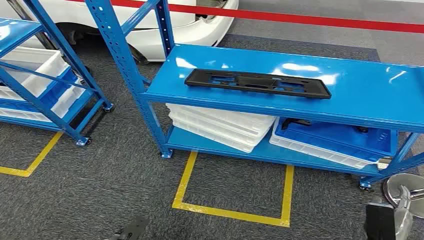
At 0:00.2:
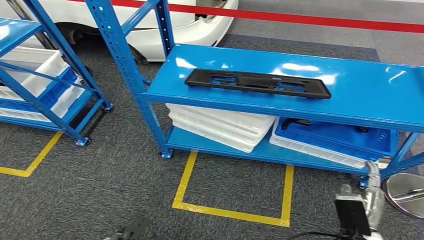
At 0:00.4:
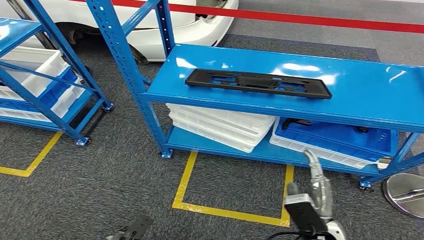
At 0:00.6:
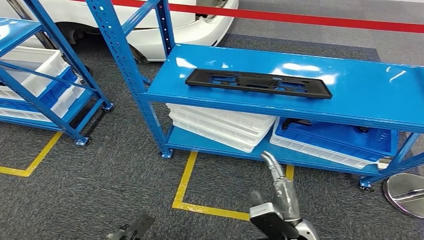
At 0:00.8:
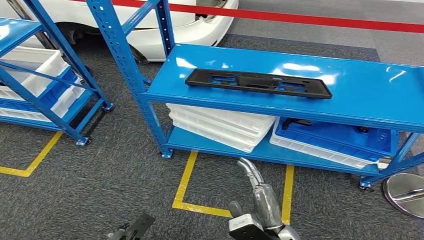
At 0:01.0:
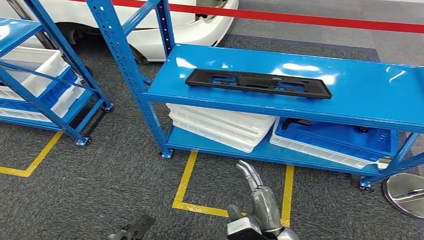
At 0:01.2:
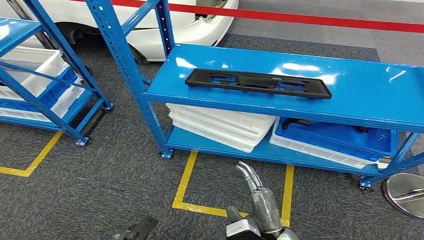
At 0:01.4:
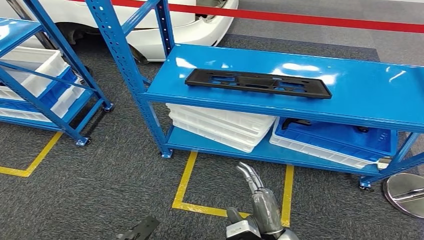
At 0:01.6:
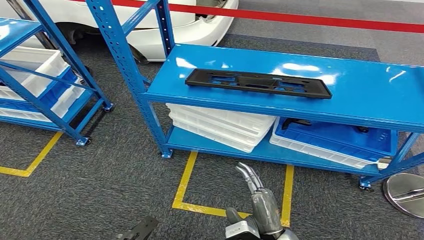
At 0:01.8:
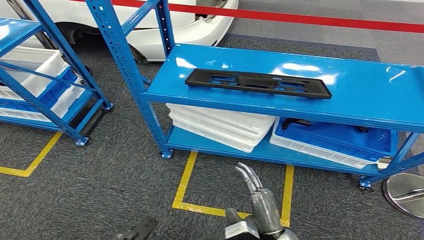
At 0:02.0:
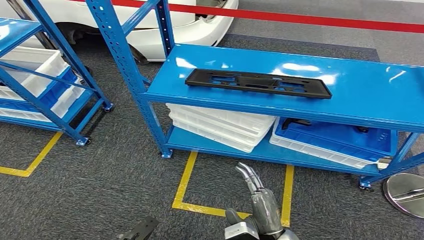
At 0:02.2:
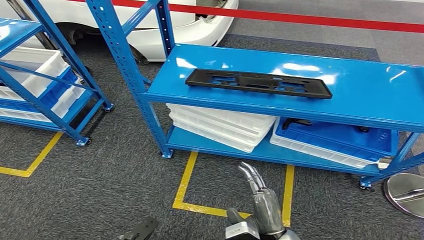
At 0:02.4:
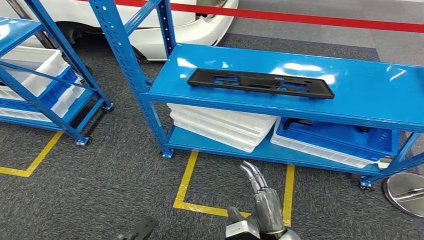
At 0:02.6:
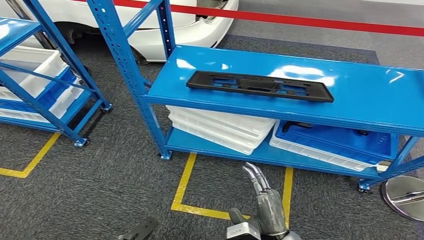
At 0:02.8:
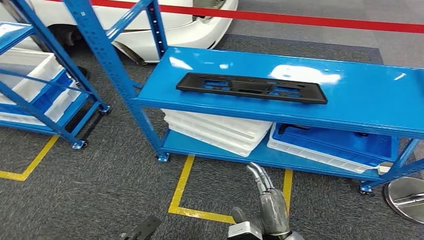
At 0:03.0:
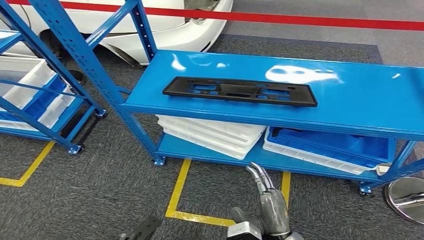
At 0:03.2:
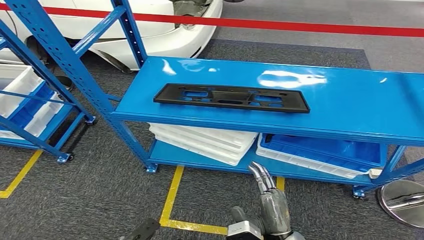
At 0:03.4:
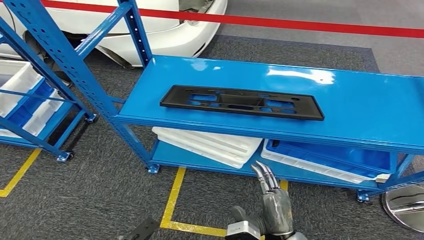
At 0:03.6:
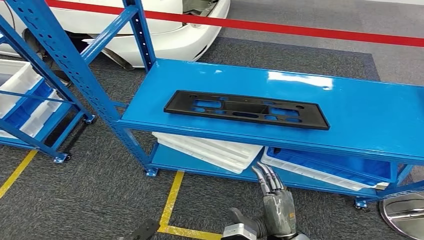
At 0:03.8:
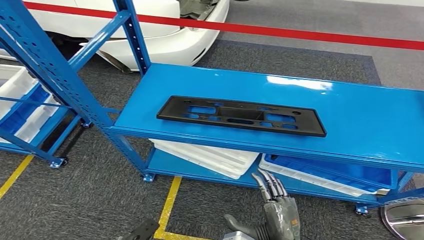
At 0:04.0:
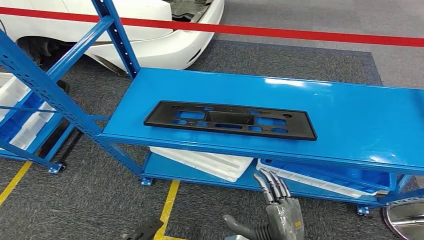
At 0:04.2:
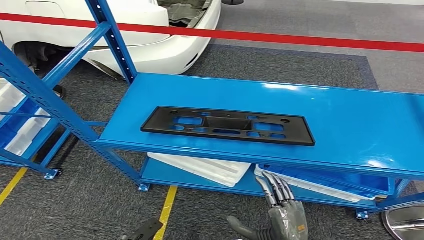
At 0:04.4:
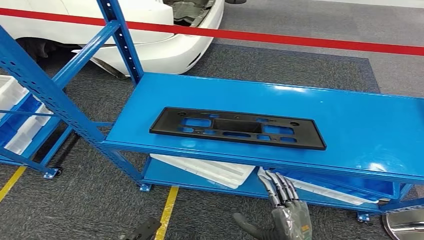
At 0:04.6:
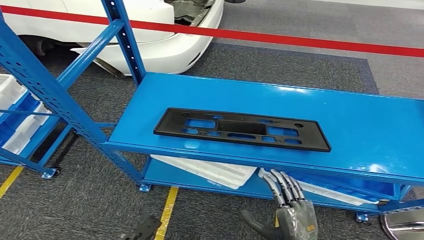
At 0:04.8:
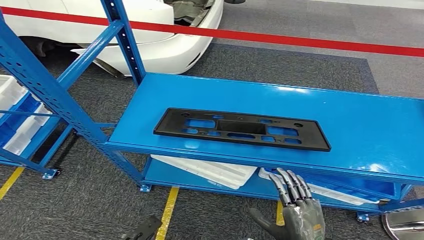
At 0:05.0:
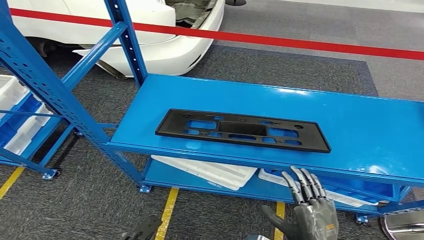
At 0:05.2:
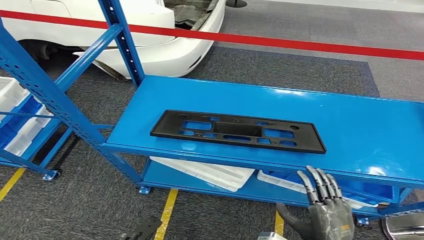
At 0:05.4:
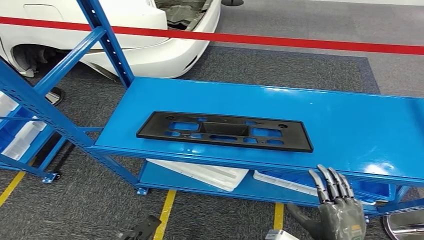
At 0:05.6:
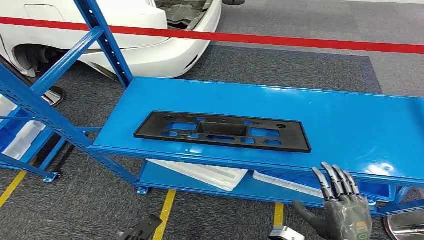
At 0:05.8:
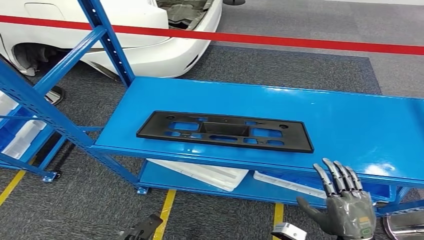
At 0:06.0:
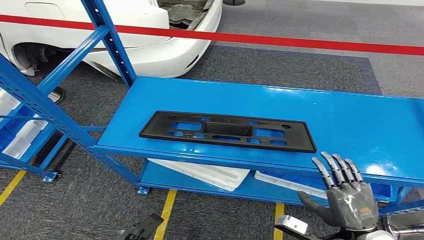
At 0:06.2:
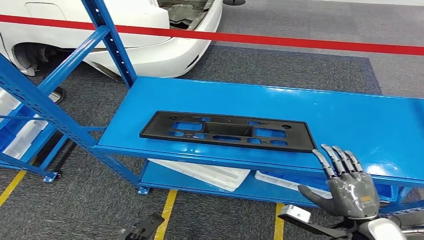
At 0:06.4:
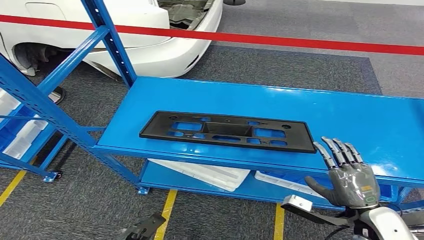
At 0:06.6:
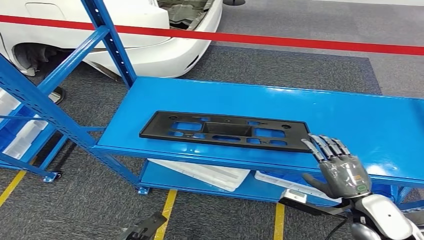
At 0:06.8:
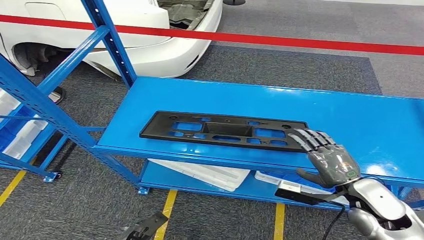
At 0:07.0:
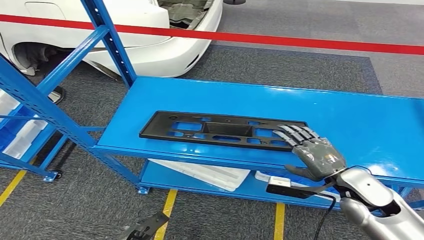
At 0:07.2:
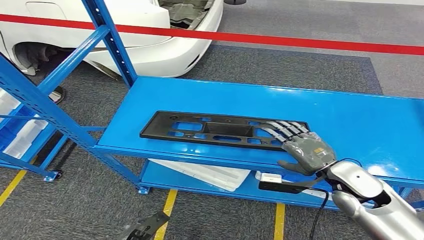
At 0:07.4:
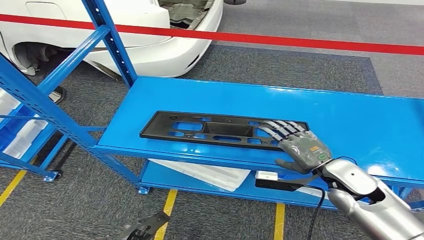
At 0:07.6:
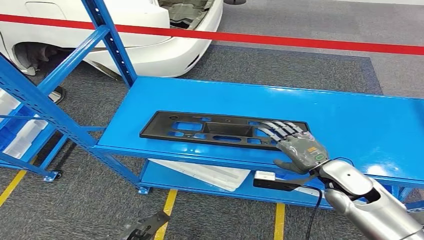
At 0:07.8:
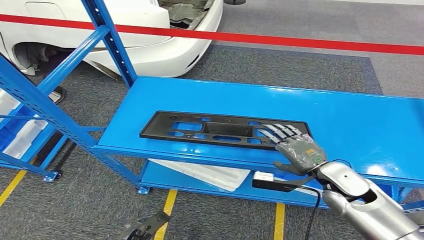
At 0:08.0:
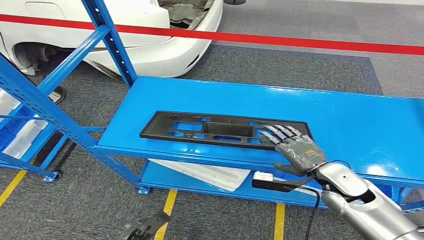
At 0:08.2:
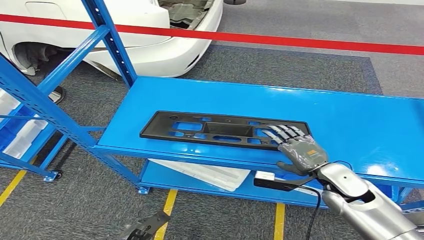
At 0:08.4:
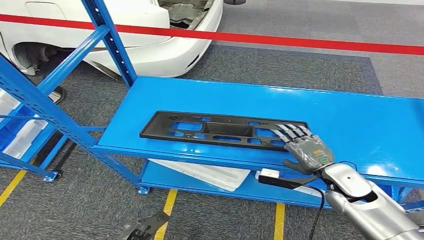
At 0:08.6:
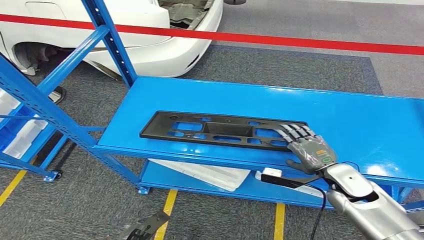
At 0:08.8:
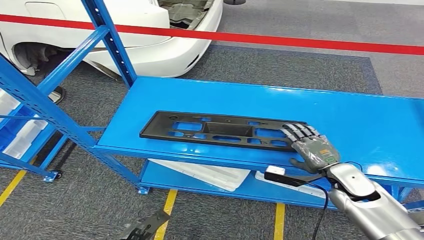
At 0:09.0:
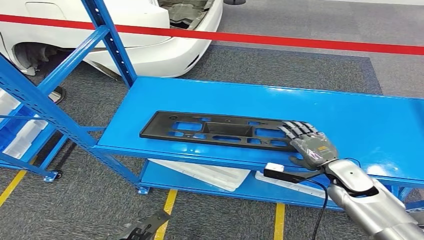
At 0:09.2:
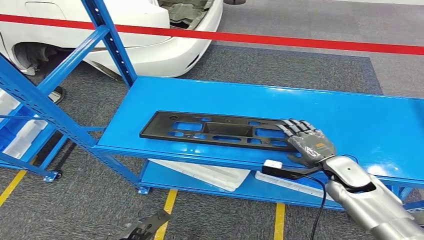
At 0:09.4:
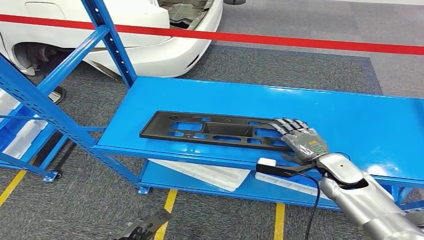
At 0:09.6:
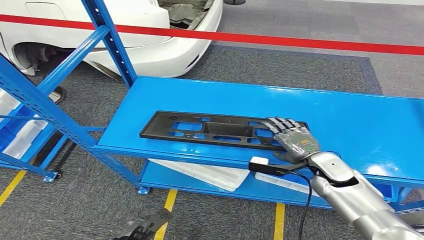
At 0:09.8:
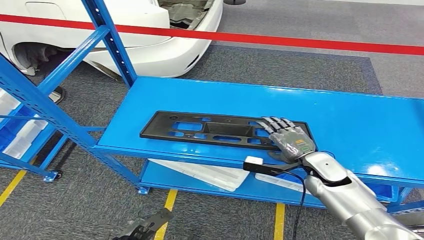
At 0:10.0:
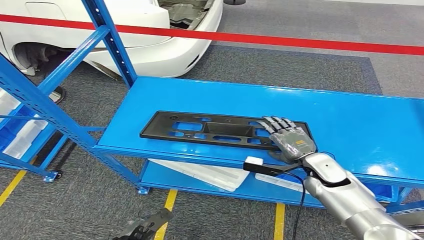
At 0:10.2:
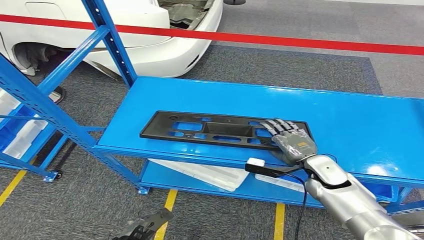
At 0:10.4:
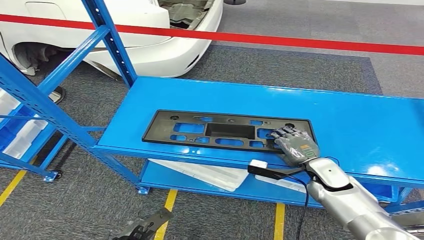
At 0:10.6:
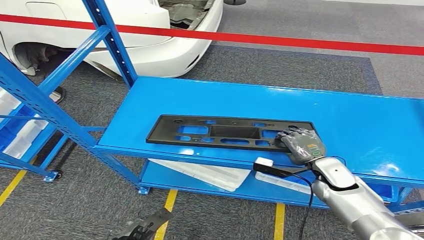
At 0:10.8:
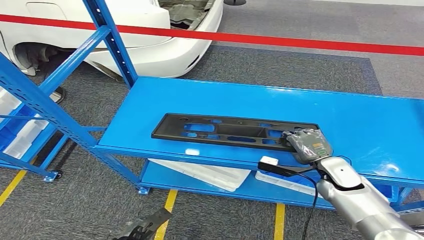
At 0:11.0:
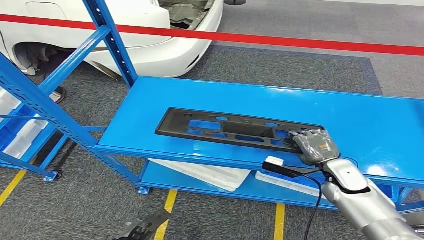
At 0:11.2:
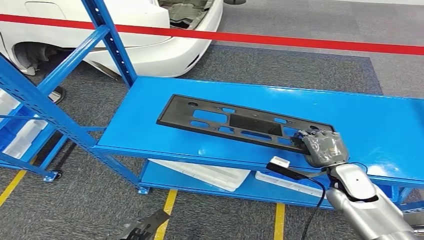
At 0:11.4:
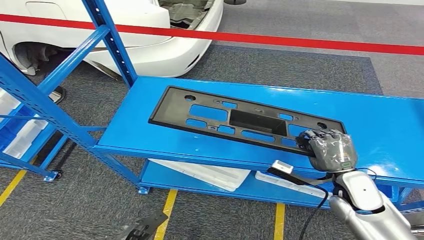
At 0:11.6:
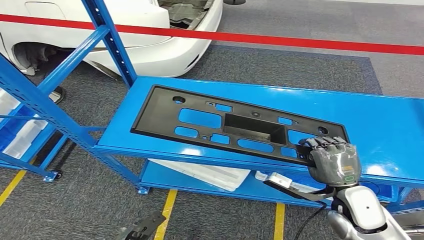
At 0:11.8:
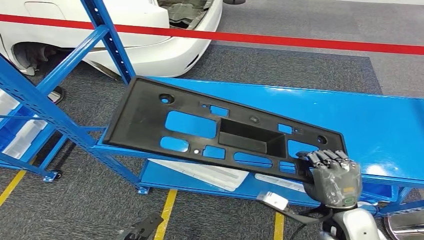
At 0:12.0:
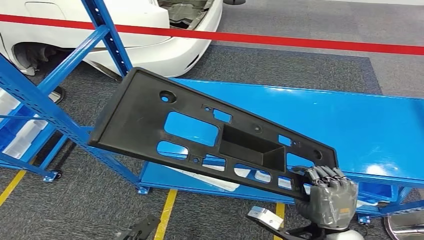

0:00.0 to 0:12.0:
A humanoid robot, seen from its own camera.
Step, 0:00.0 to 0:11.8: Pick up the large material from the shelf.
0:06.0 to 0:07.6: The right hand heads forward, covering approximately 15 cm.
0:07.6 to 0:09.0: The right hand changes place by approximately 5 cm.
0:09.0 to 0:10.4: The hands move only a little.

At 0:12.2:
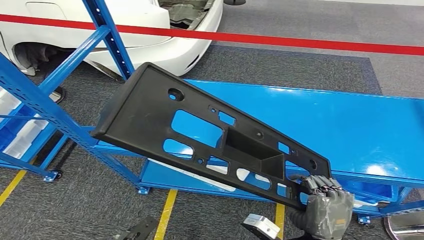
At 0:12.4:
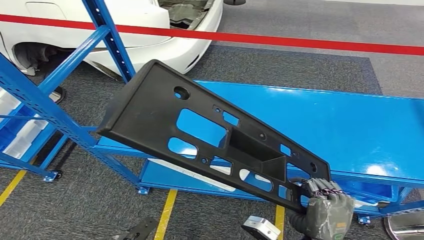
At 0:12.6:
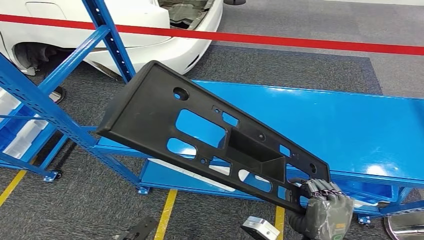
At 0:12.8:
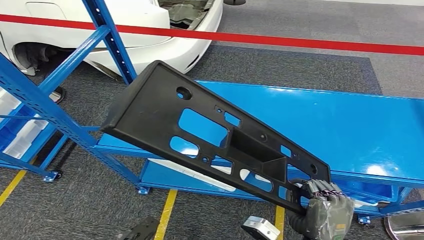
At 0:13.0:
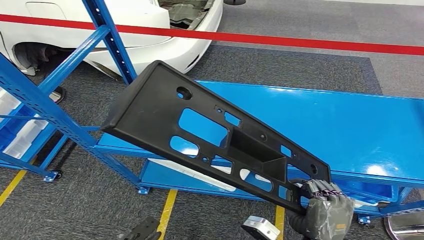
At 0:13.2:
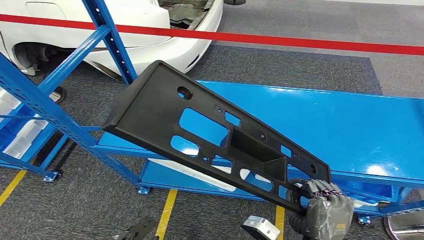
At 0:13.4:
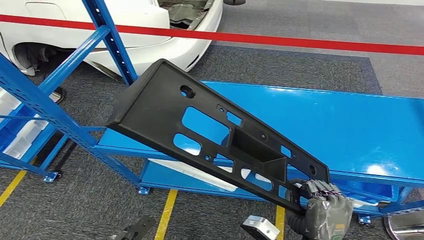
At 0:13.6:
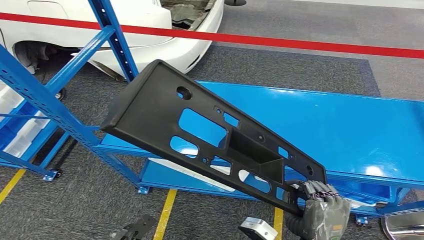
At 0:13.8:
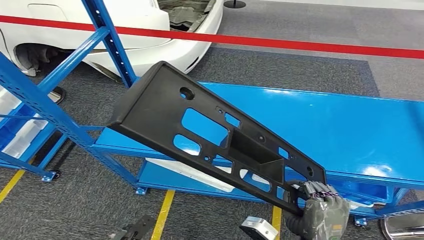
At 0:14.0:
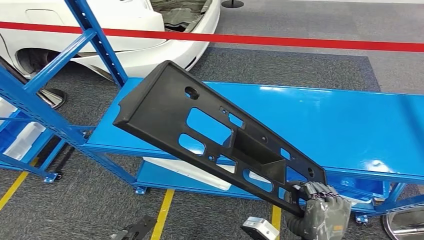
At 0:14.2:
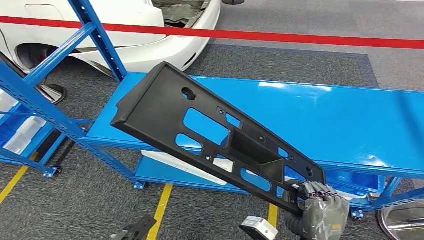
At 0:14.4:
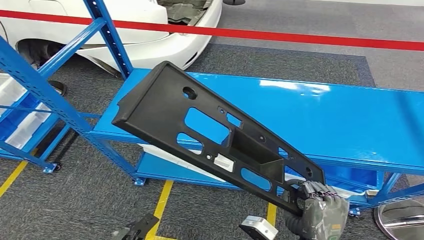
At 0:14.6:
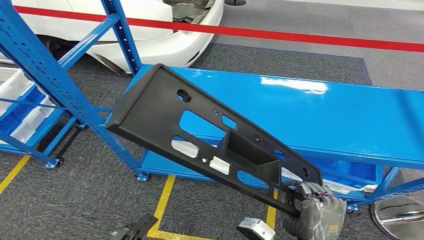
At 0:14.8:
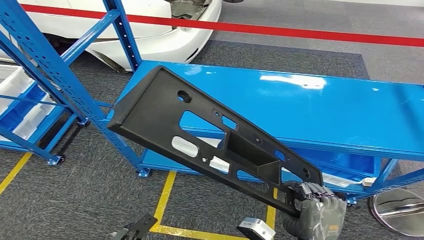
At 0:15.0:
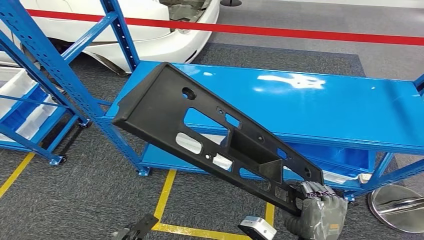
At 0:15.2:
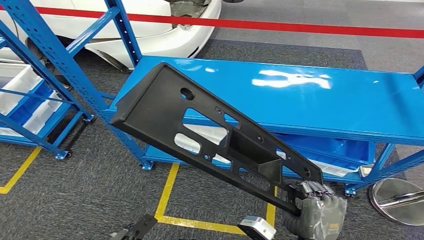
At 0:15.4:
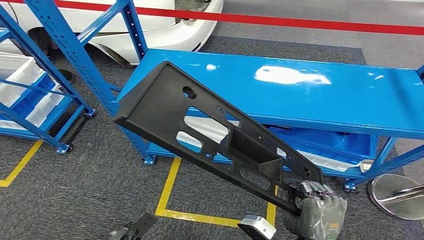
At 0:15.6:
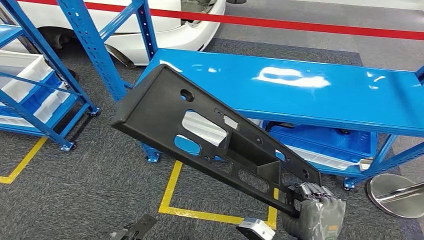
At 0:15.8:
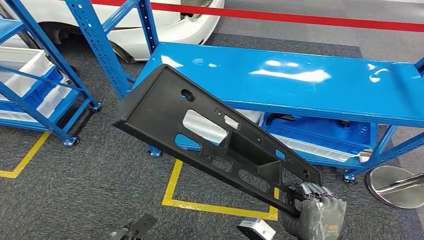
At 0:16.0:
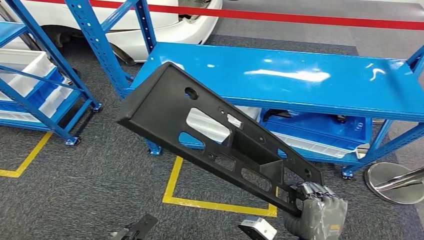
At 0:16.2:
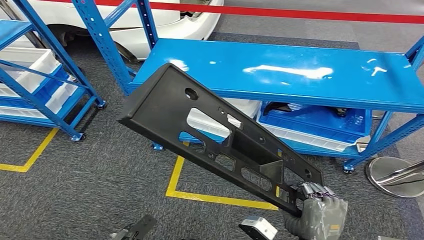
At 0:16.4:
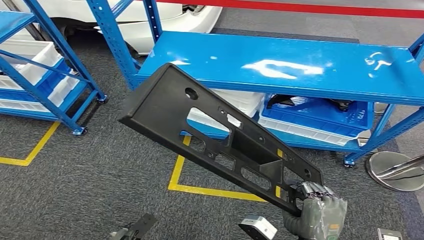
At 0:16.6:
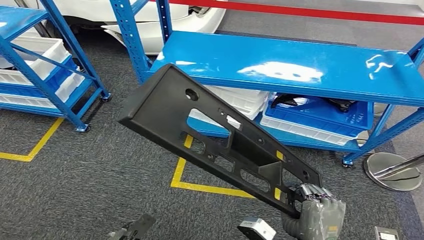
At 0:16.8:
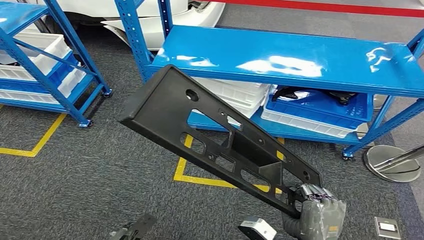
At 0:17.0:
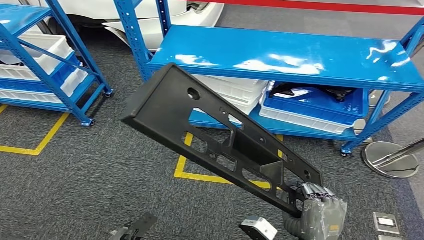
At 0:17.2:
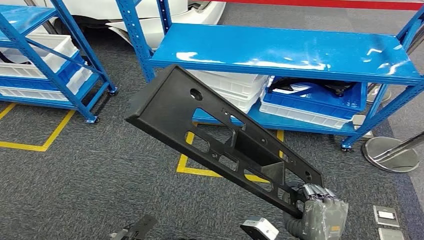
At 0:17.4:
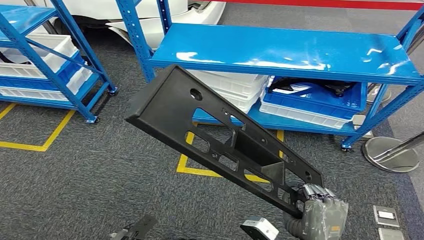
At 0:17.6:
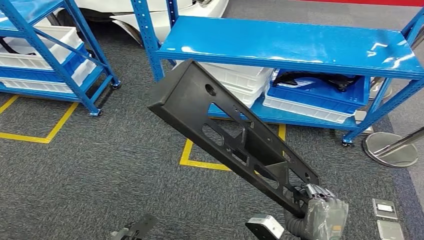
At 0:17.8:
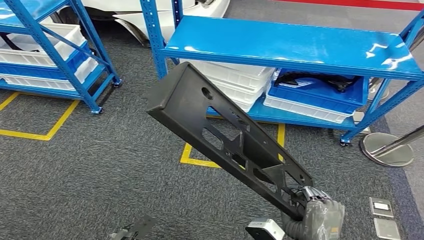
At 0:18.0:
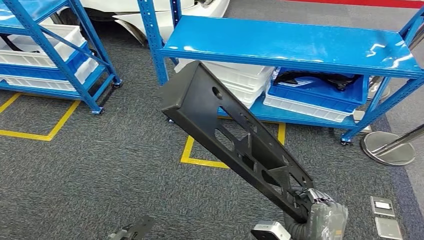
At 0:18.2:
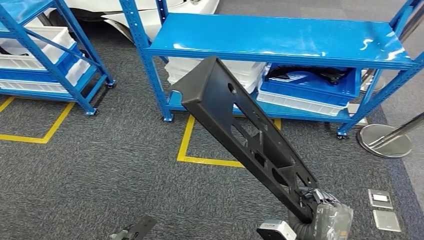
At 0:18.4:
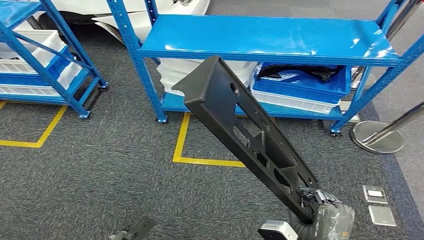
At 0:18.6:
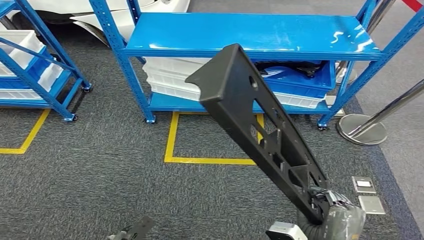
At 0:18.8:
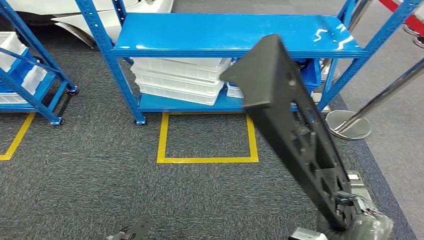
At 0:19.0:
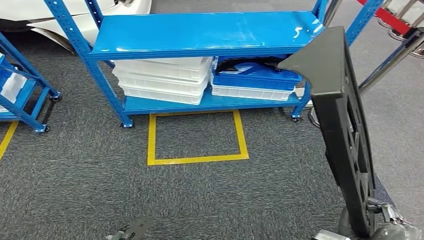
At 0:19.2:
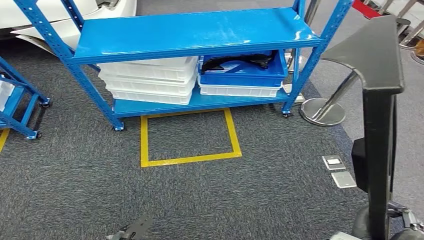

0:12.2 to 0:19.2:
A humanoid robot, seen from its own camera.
0:12.2 to 0:13.6: The hands make only small movements.
